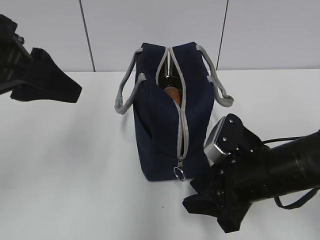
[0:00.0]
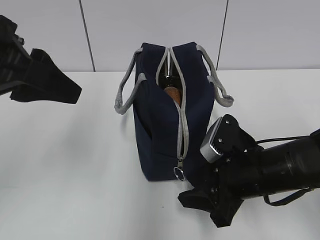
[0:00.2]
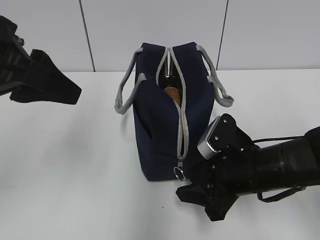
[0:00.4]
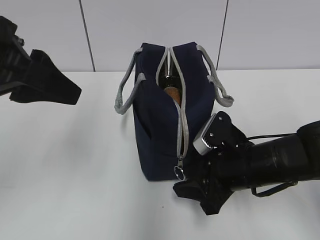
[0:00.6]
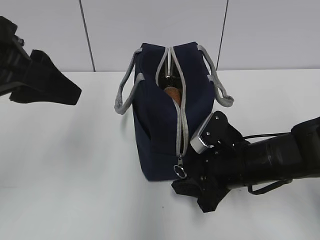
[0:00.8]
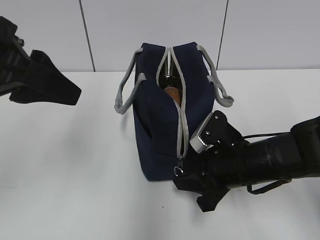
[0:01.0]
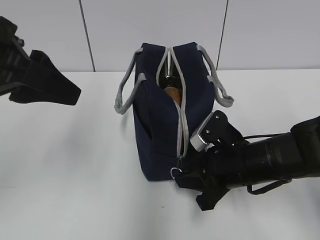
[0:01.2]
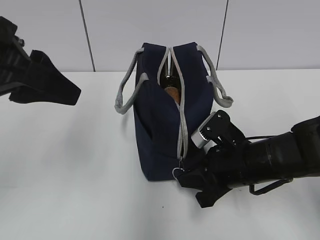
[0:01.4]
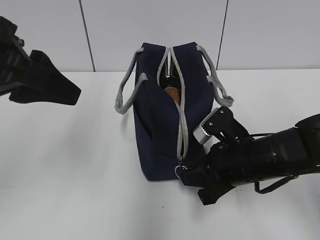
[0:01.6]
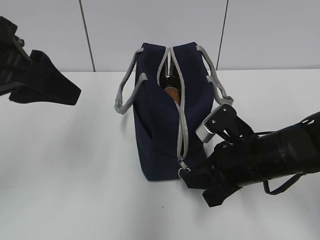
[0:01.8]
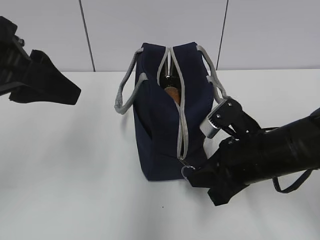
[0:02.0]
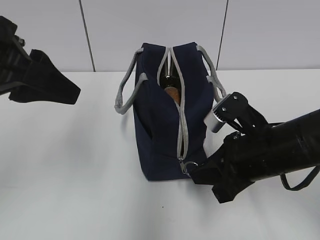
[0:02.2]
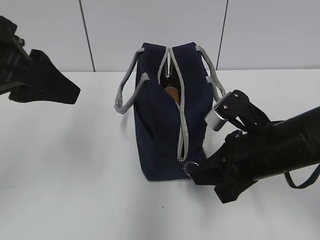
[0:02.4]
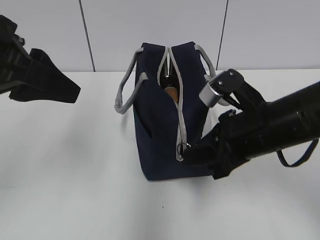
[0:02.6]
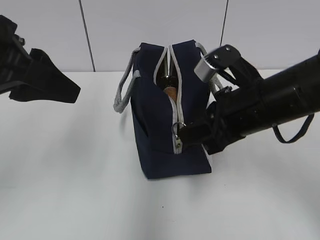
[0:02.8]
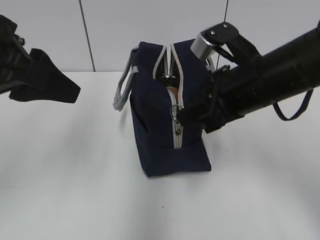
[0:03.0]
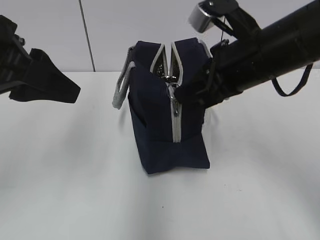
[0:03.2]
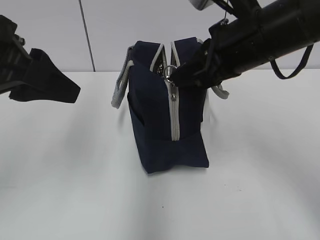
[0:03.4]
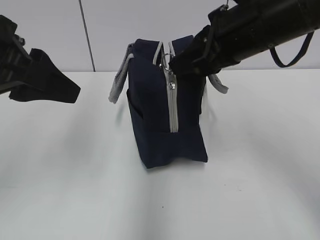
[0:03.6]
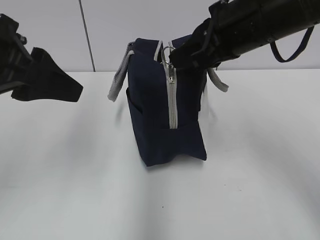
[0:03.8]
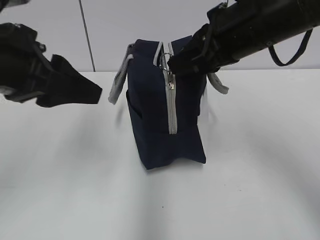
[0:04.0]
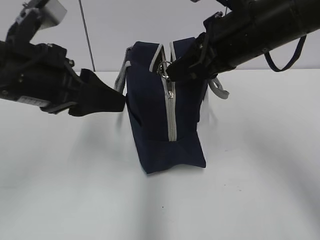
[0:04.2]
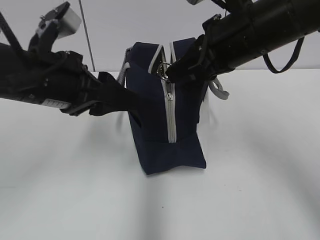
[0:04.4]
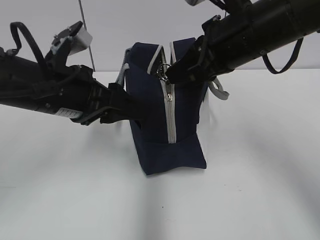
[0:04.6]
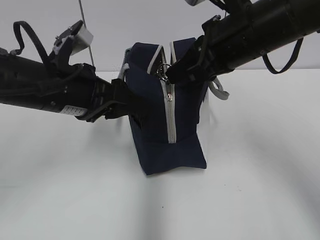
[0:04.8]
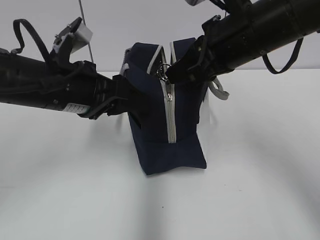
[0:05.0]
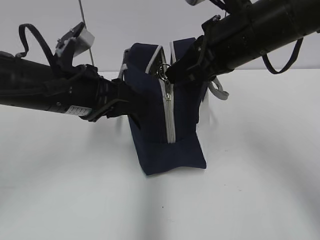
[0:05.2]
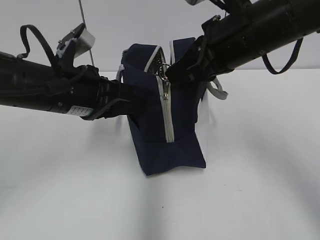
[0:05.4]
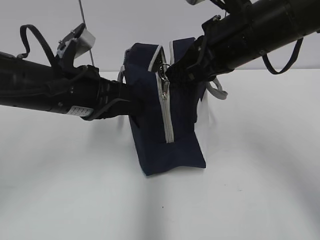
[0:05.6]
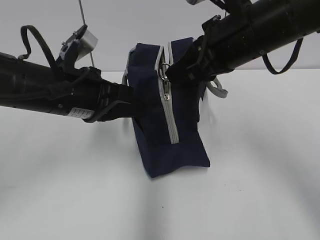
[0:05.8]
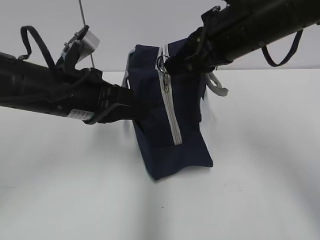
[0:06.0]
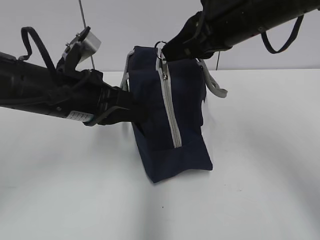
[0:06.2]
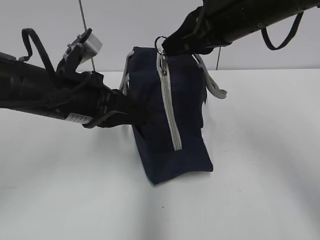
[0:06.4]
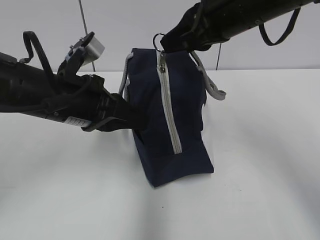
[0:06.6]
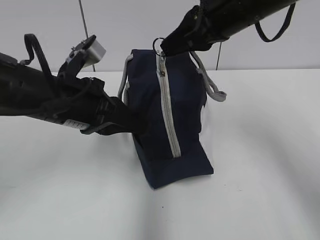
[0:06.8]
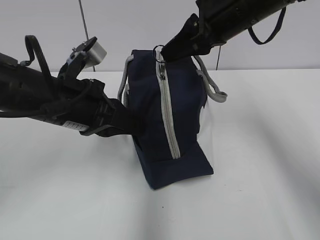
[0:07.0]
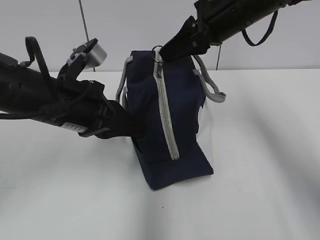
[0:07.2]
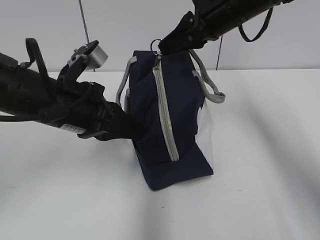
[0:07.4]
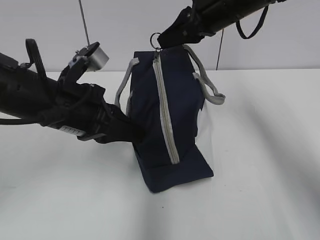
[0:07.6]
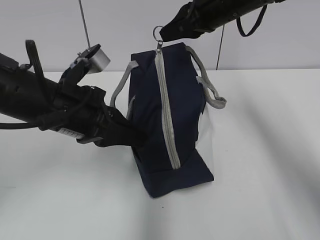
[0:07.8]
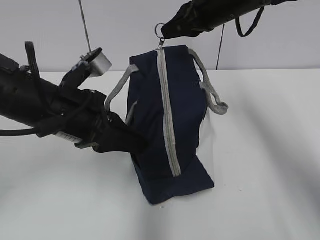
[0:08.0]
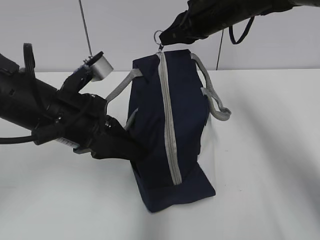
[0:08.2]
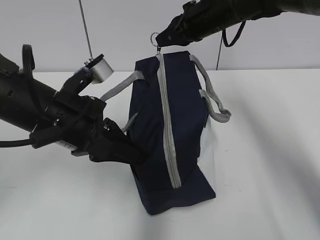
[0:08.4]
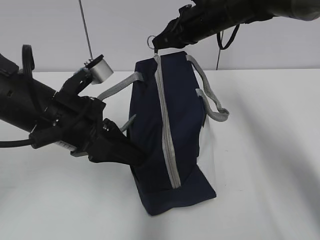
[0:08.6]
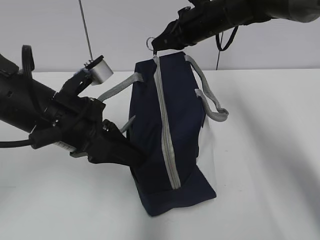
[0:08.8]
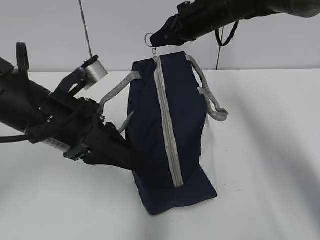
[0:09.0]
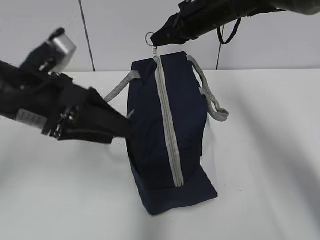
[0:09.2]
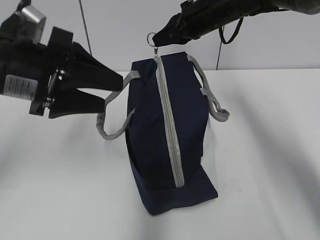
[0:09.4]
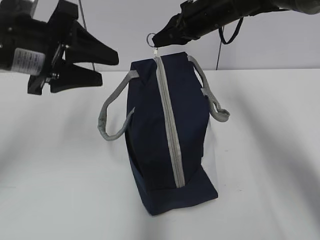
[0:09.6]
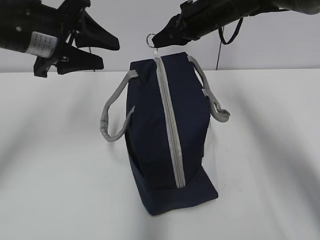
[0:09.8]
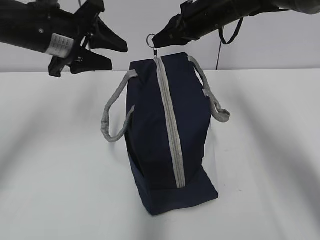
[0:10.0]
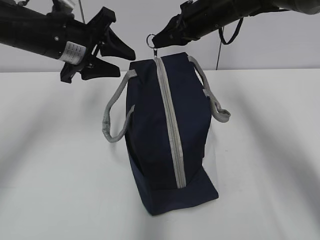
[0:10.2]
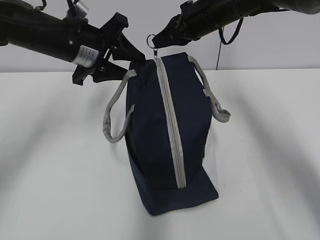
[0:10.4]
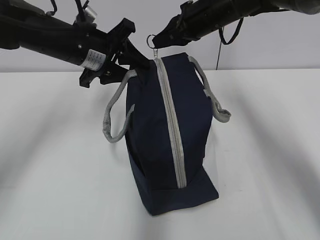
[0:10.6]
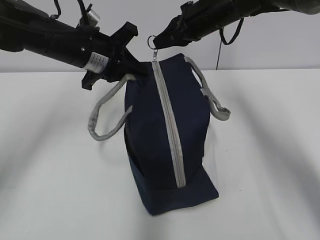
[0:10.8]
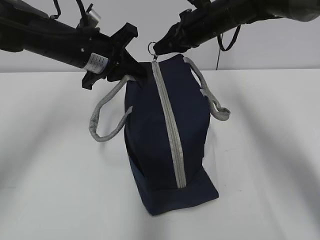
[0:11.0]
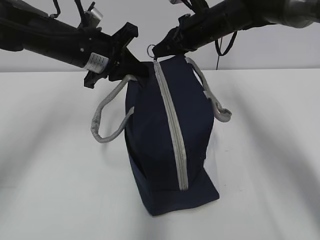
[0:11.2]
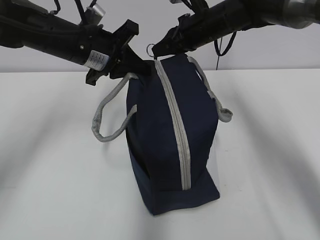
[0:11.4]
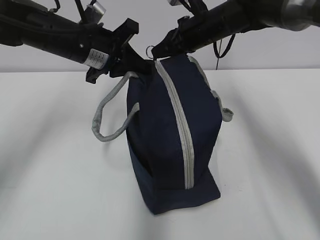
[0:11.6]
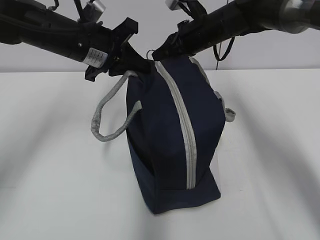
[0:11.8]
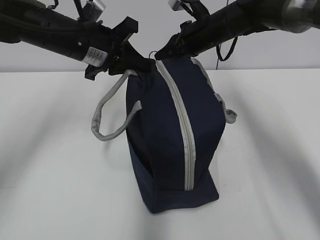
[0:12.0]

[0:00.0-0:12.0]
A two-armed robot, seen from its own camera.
0.0 to 1.6 s: The right gripper closes up.
1.6 to 3.0 s: The right gripper shifts some 10 cm upward.
3.0 to 4.4 s: The right gripper shifts about 5 cm upward; the left gripper is displaced downward by about 5 cm.
4.4 to 6.0 s: The left gripper closes.
6.0 to 7.6 s: The right gripper heads forward, covering roughly 10 cm.
7.6 to 9.0 s: The left gripper opens. Meanwhile the right gripper travels forward by roughly 5 cm.
9.0 to 10.4 s: The left gripper shifts roughly 15 cm forward.
10.4 to 12.0 s: The left gripper closes its fingers.

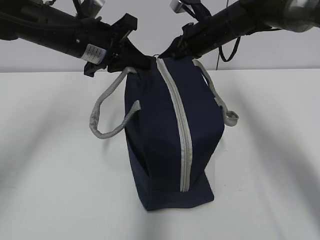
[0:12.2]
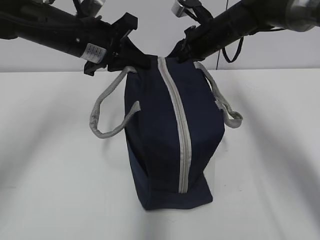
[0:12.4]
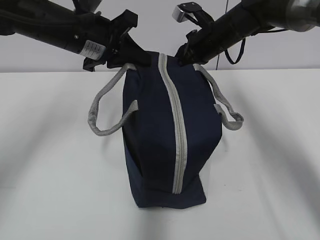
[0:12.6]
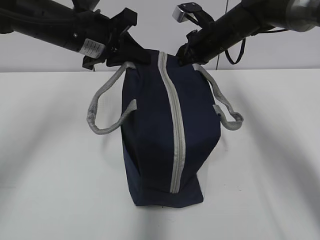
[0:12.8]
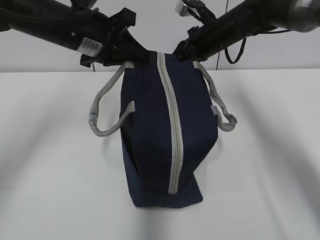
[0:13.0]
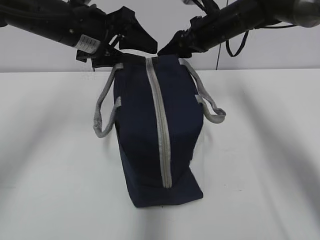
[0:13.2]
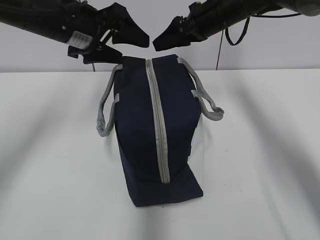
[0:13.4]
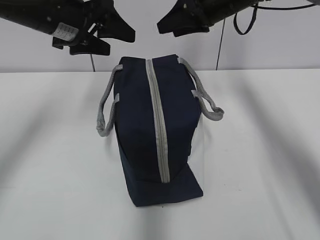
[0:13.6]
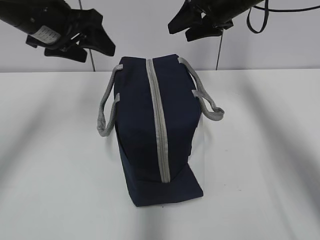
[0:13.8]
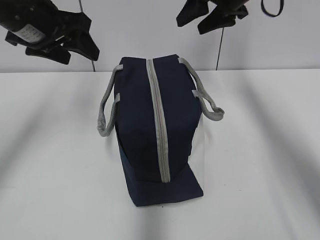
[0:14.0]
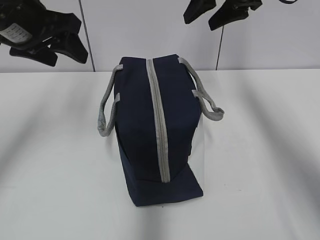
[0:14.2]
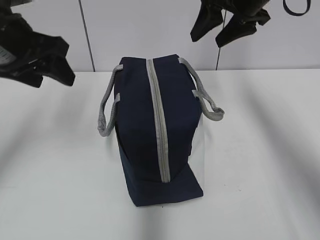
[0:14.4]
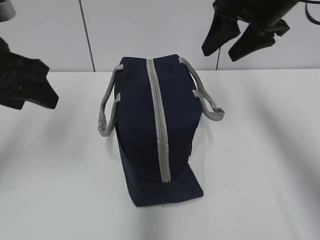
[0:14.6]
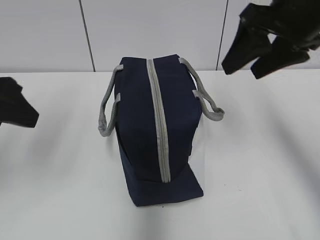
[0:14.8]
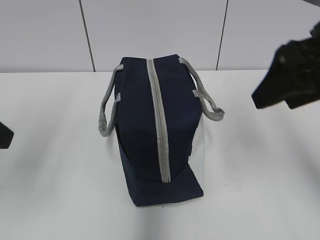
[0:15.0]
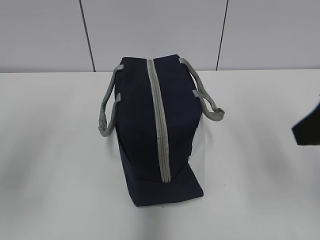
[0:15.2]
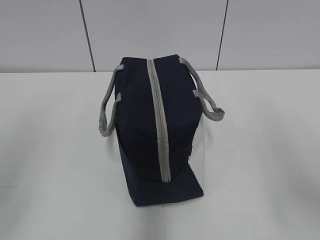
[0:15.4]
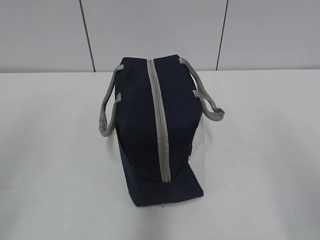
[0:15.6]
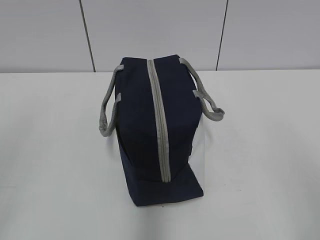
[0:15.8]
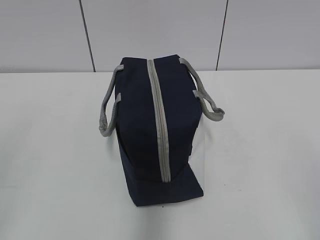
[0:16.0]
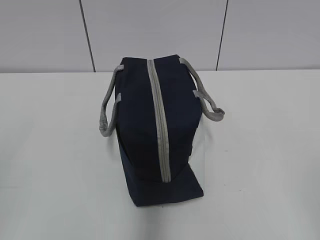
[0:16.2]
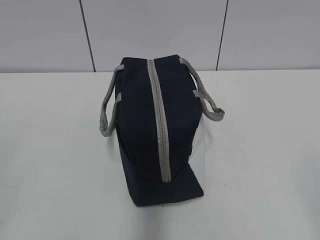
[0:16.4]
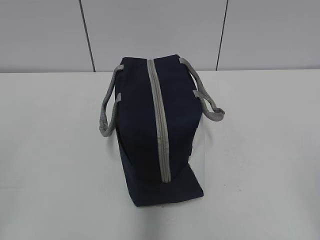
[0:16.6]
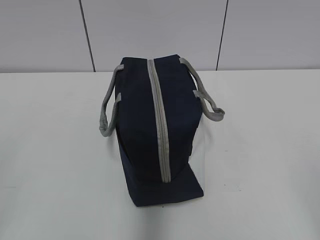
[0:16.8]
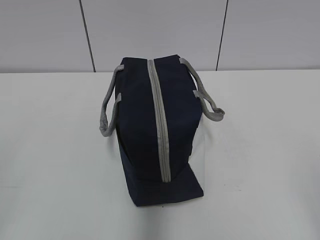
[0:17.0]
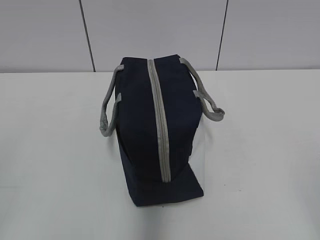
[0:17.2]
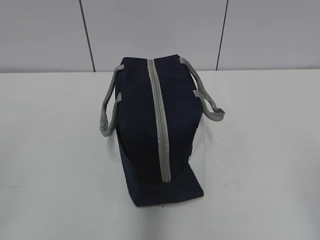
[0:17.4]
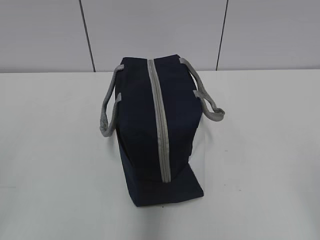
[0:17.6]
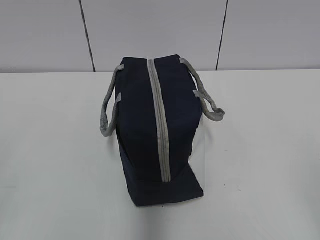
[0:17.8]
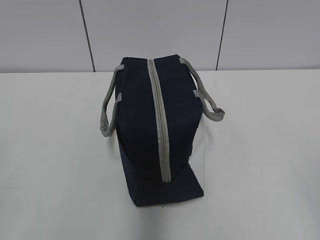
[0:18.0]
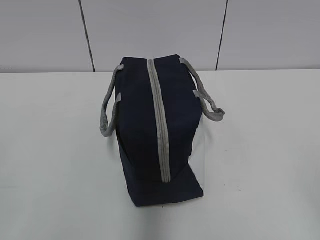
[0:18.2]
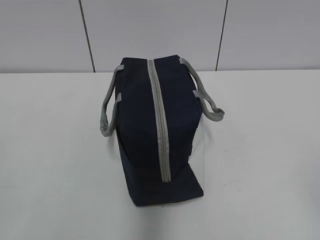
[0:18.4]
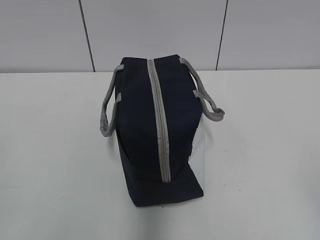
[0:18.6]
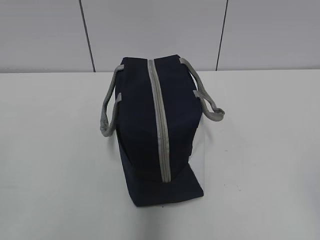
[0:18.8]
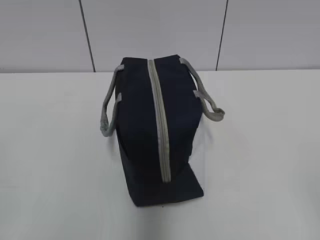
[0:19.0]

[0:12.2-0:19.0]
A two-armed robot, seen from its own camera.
12.2 to 13.6 s: The right gripper shifts roughly 5 cm upward, and opens its fingers. The left gripper opens.
13.6 to 15.0 s: The left gripper is displaced backward and to the left by approximately 20 cm. The right gripper is displaced backward by roughly 25 cm.
15.0 to 16.2 s: The right gripper is displaced backward by some 25 cm, while the left gripper moves backward, approximately 15 cm.

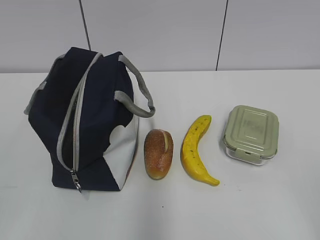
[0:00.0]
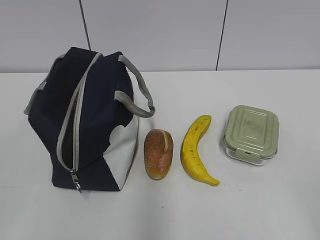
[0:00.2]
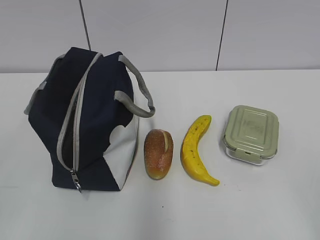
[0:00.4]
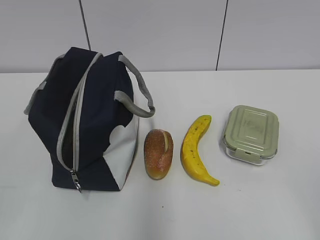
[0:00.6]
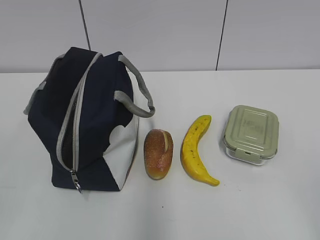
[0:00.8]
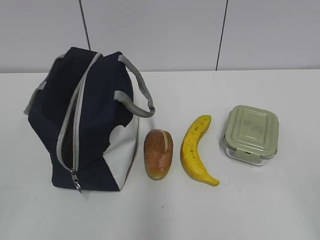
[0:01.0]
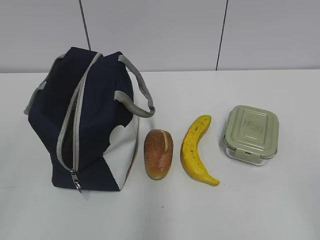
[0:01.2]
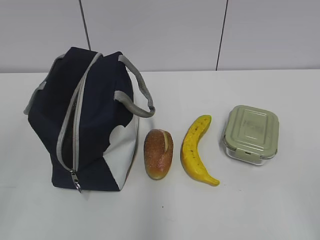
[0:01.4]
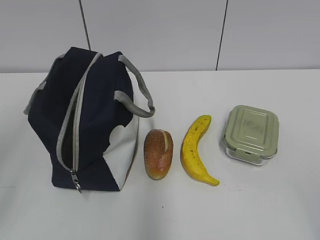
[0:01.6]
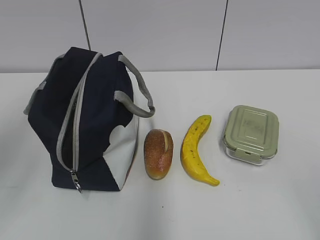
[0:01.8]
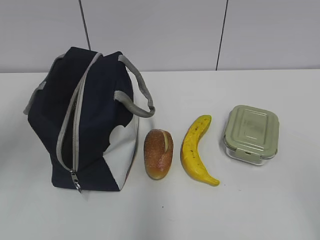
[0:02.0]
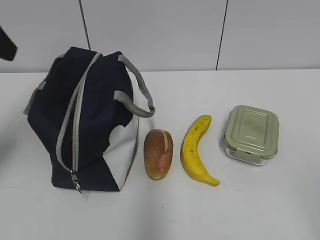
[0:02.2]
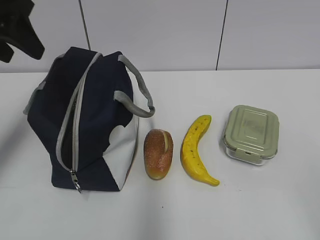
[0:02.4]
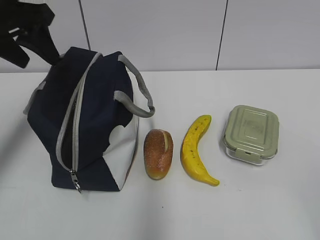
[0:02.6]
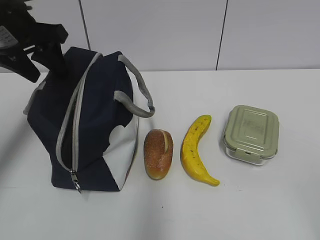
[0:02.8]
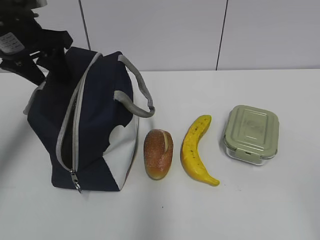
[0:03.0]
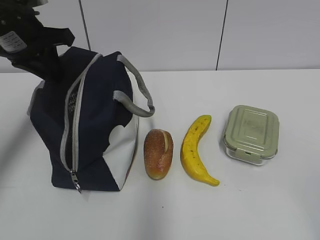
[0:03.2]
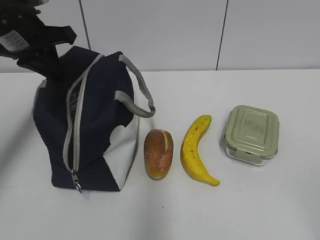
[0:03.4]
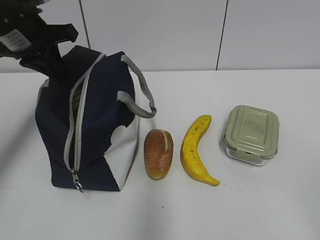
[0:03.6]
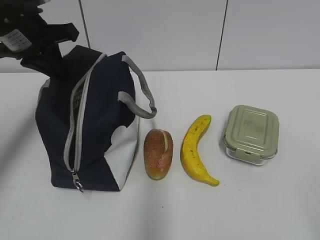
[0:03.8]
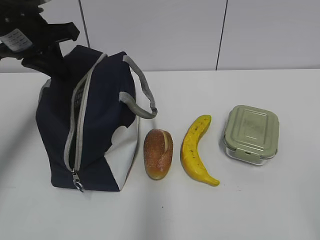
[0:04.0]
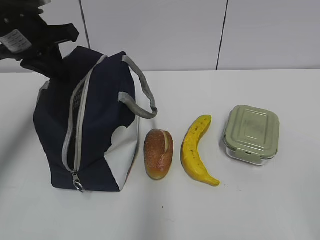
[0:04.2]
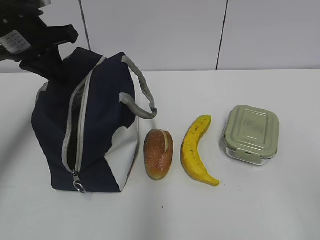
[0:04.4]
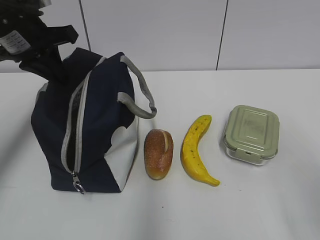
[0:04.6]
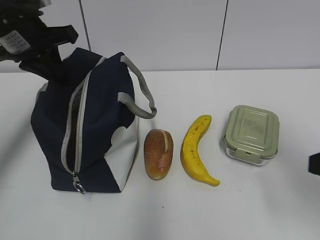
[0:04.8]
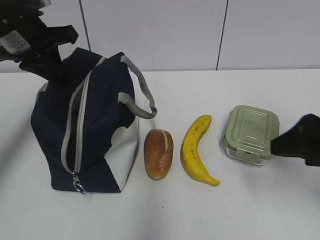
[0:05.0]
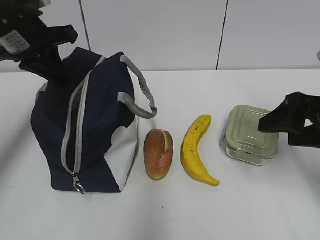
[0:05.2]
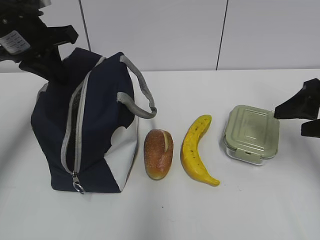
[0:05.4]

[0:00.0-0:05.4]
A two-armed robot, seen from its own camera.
1.4 to 2.8 s: The left gripper travels forward by about 30 cm.
2.8 to 4.0 s: The left gripper closes.
4.0 to 5.4 s: The right gripper shifts about 25 cm forward.
